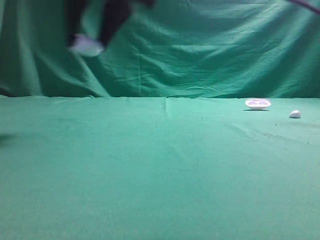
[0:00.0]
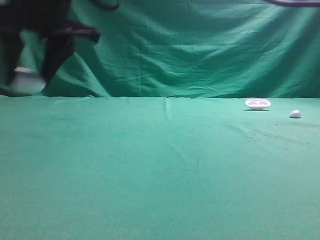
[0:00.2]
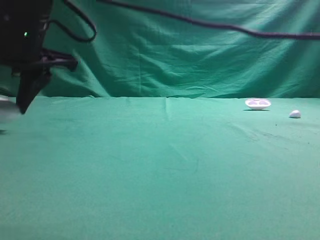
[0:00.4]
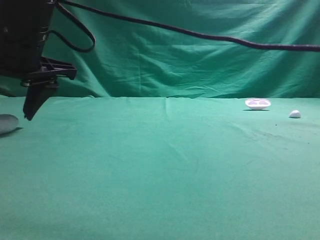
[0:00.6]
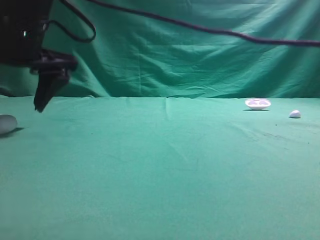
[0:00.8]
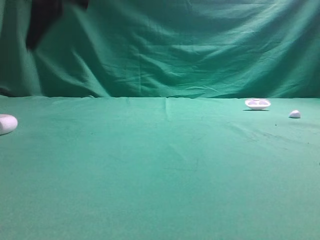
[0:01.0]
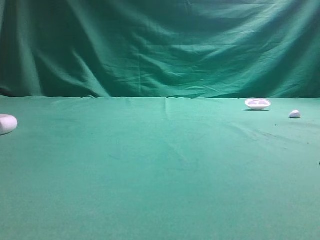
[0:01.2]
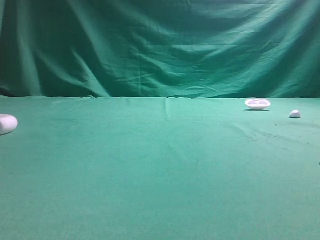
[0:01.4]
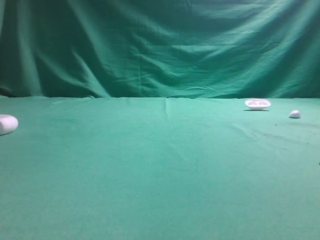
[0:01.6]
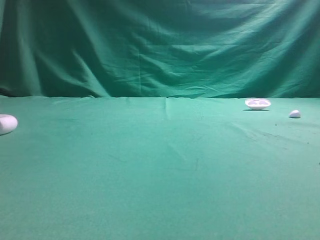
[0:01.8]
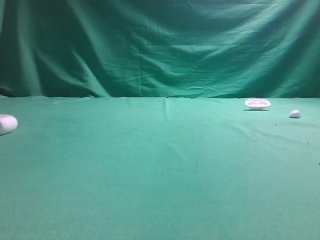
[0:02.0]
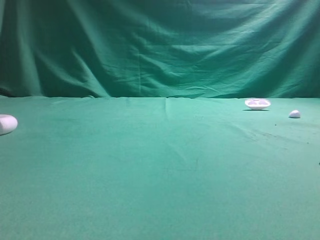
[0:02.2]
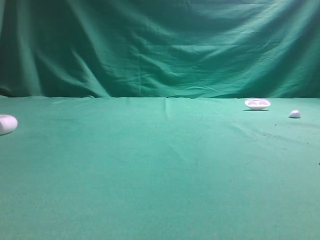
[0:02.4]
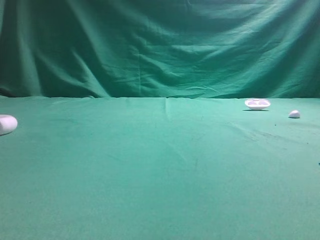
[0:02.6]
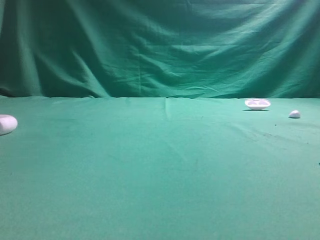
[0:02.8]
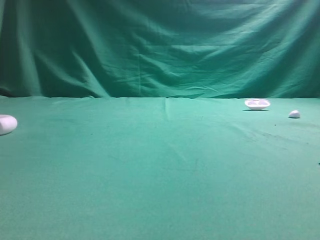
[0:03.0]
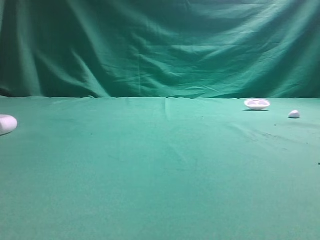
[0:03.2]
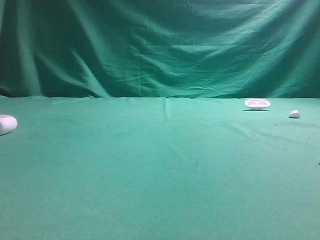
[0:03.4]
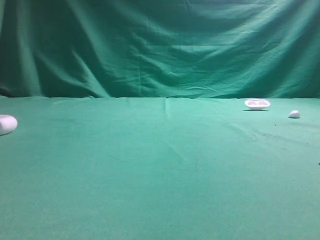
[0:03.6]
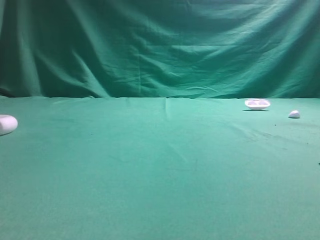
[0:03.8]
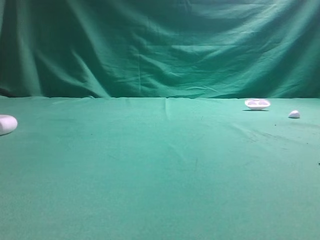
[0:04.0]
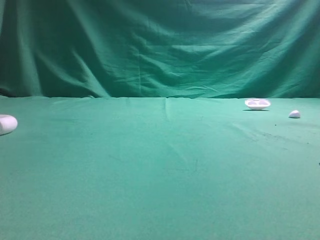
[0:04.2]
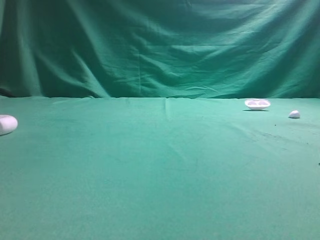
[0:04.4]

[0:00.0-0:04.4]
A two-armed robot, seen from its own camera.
Step, 0:00.0 to 0:00.8: Place bluetooth earphone case on the left side of the table.

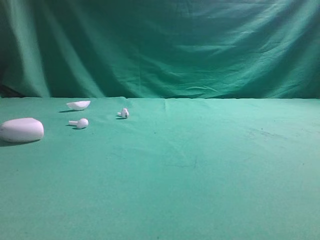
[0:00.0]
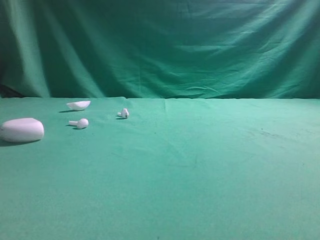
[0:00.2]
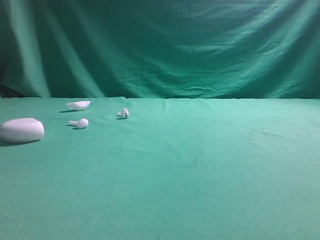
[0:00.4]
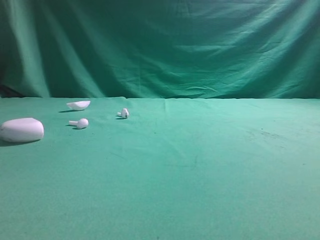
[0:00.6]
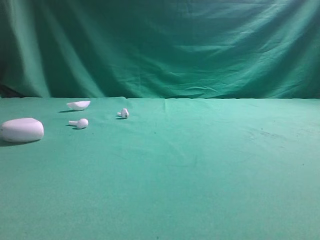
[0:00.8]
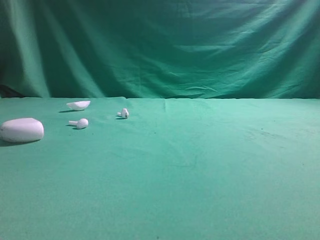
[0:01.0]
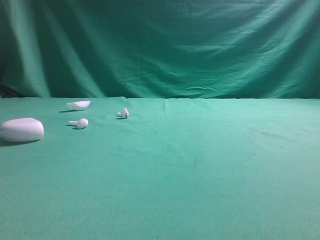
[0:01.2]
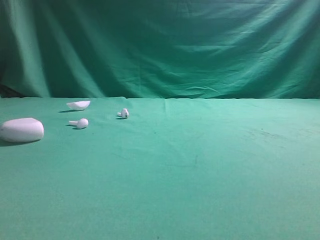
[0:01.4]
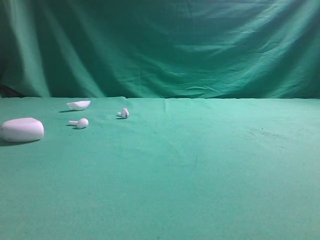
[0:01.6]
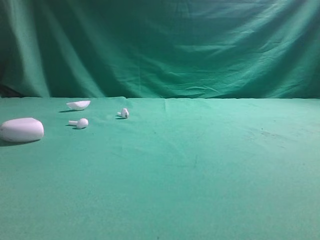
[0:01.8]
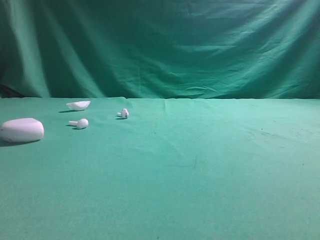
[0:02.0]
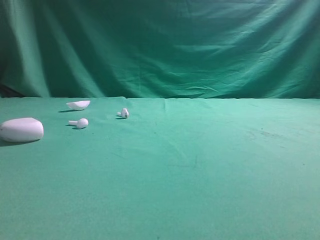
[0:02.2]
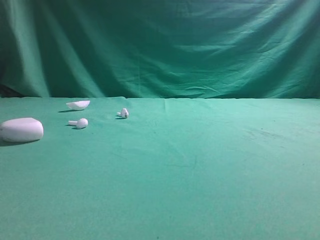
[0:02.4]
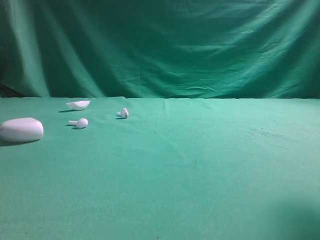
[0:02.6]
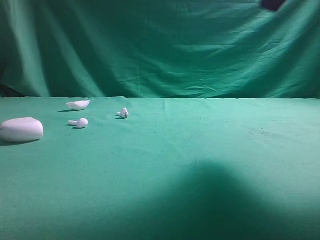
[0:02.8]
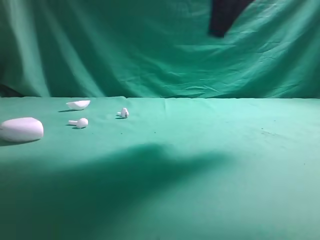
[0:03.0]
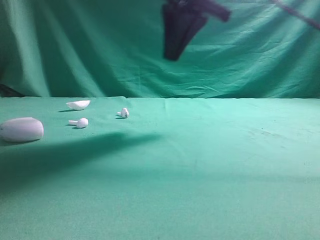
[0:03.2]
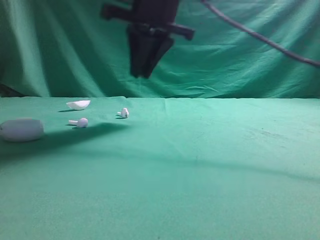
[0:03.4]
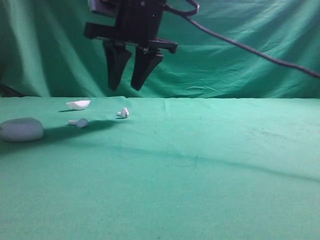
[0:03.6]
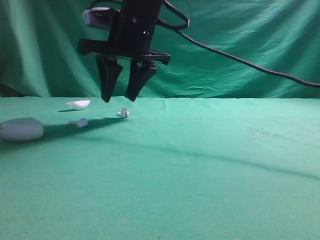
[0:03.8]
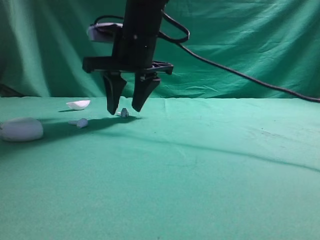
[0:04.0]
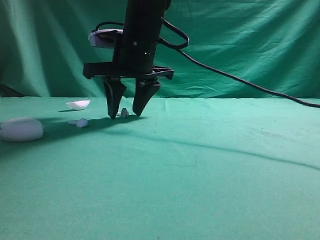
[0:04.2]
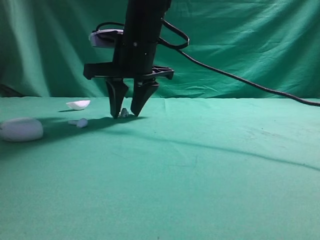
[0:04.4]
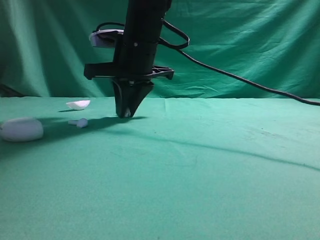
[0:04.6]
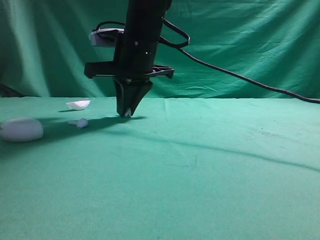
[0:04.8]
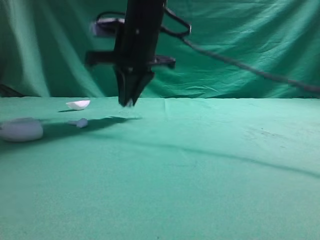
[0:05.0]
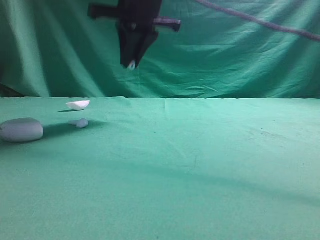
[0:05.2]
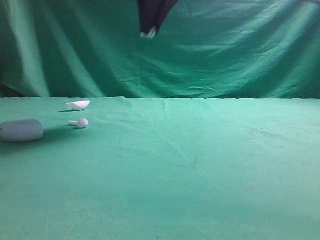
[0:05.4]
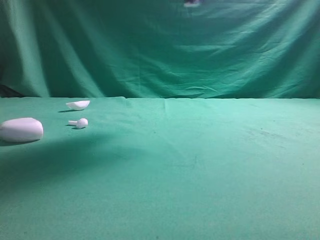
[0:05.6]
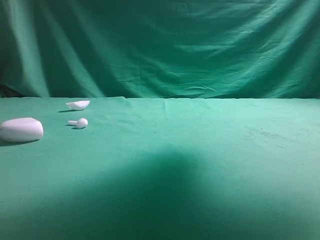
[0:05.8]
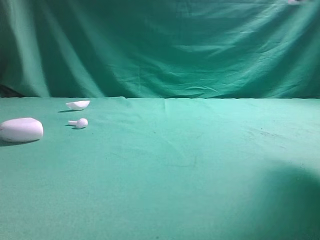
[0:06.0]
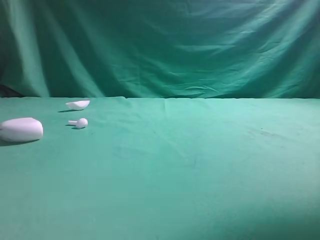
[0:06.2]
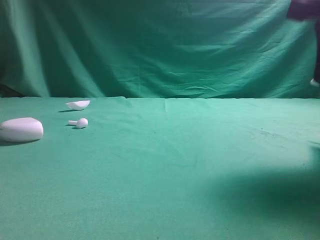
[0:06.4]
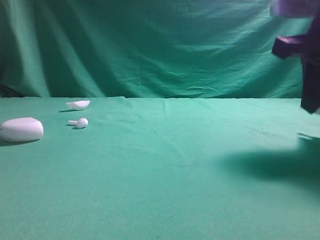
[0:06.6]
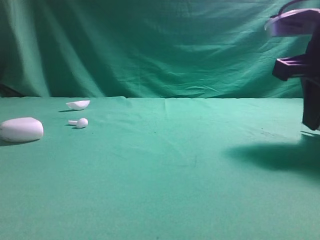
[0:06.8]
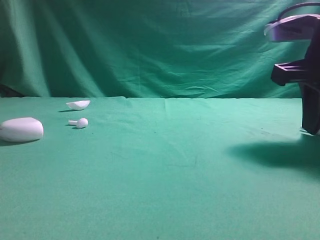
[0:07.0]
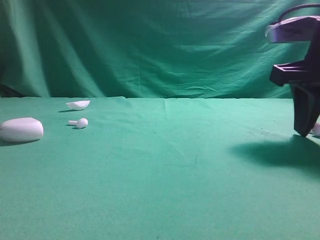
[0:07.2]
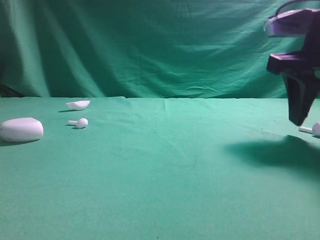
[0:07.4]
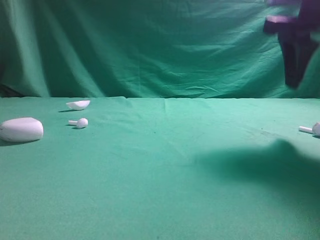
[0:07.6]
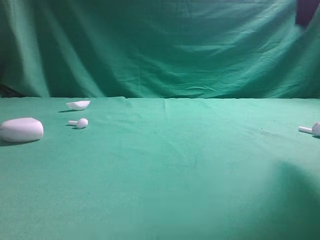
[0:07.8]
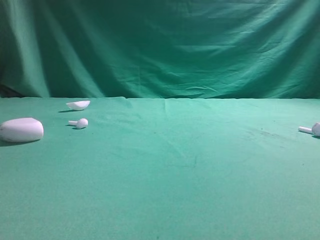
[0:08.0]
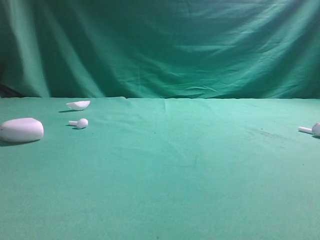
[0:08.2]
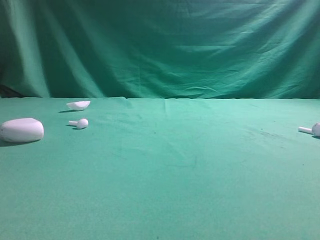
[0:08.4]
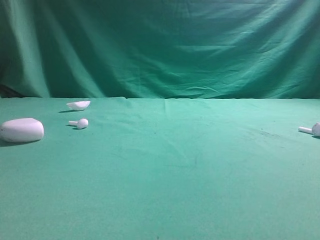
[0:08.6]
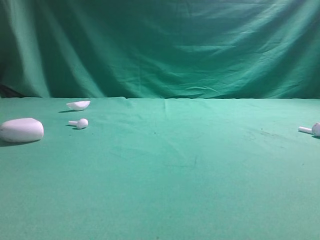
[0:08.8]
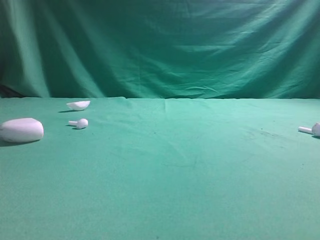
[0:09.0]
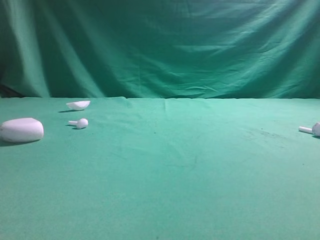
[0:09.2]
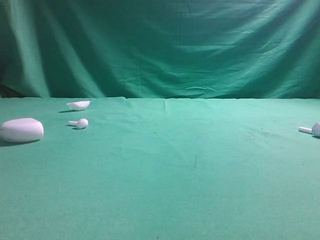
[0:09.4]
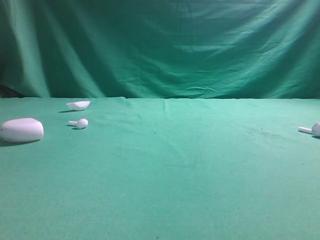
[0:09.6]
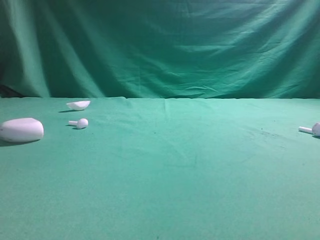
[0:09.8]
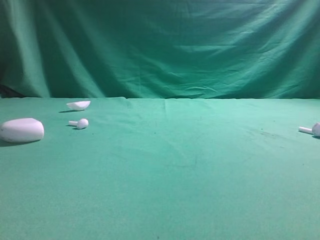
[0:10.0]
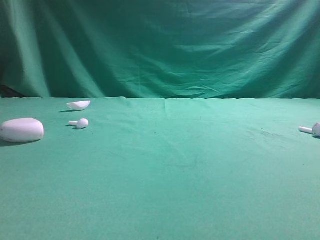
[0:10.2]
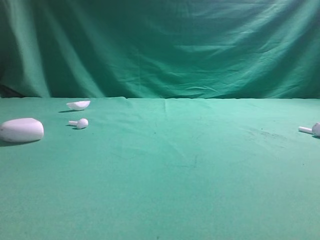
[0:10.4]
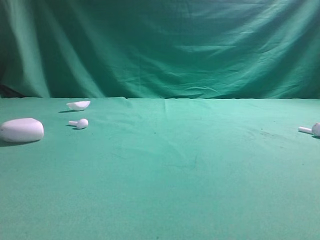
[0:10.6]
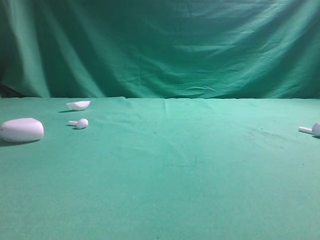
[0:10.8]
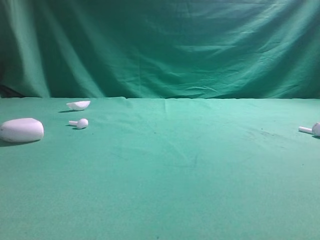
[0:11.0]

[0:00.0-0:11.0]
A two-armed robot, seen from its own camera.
Step, 0:00.0 to 0:05.4: Grasp the Bluetooth earbud.
Step, 0:05.6 to 0:07.8: Place bluetooth earbud on the right side of the table.
